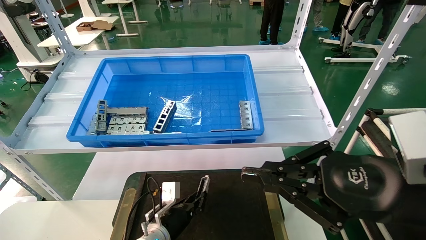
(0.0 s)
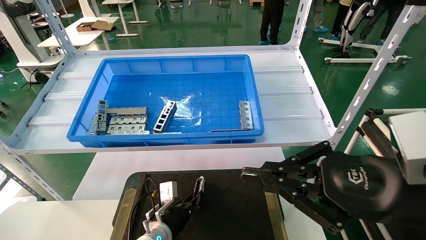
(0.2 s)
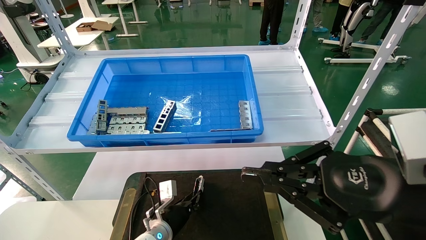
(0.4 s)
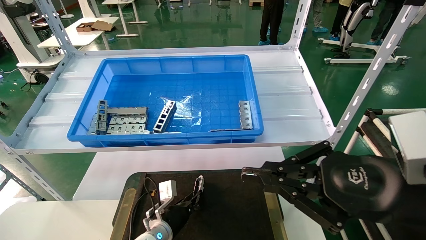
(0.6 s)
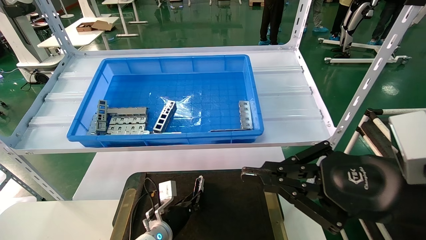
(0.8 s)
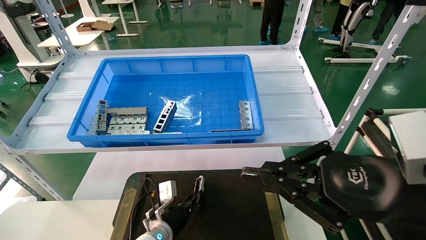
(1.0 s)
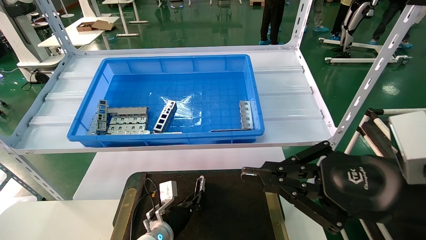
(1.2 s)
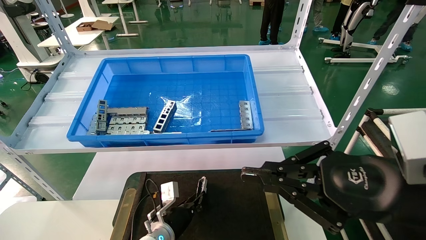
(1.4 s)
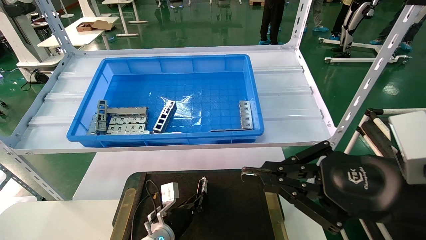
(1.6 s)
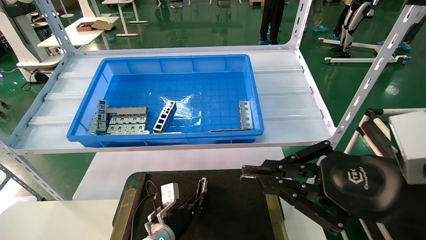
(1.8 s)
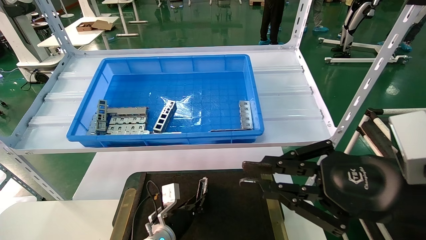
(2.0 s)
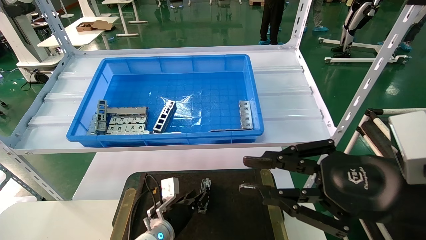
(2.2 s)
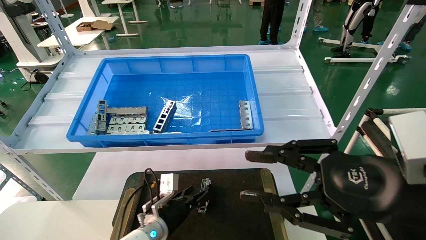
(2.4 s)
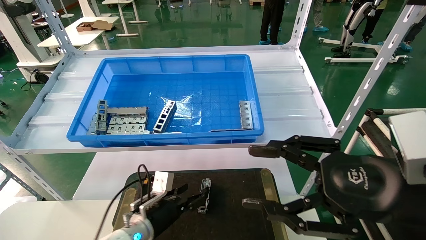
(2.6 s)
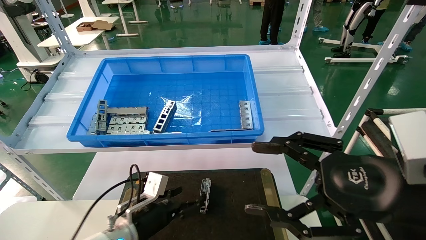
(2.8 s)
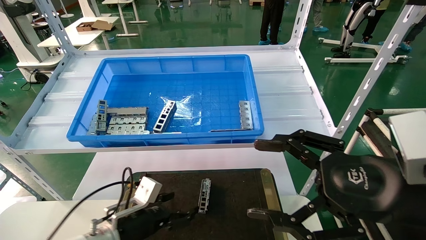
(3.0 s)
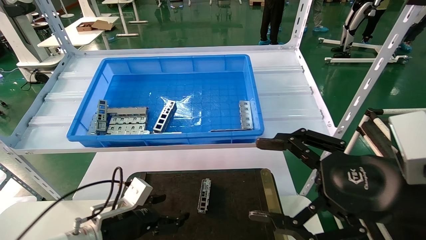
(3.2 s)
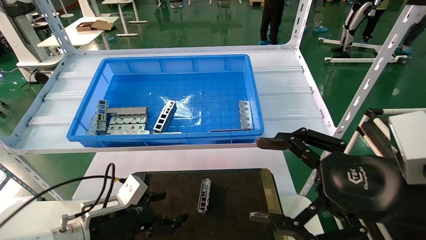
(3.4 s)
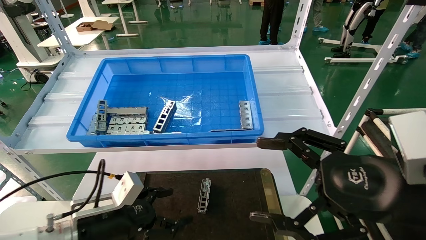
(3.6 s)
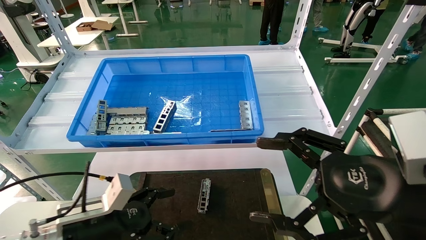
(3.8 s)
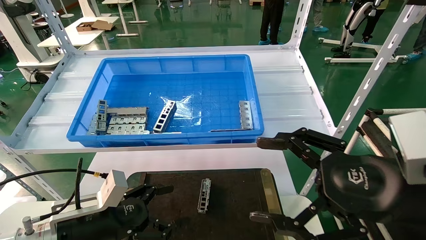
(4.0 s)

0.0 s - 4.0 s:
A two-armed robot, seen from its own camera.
Task of the whole recording: Grasp the part with one hand and place it on the black container.
Step, 0.0 s - 2.2 s: Place the front USB bracket into the box.
0.0 s - 1.4 s: The grippers stay close to where they were, moving slightly.
1.4 s - 2.6 s: The right gripper opens; the left gripper goes approximately 5 cm upward, and opens its fingers.
2.6 s - 4.0 s: The right gripper opens. Meanwhile the left gripper shifts approximately 15 cm backward, to the left and upward, and opens.

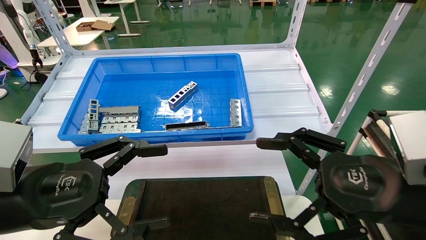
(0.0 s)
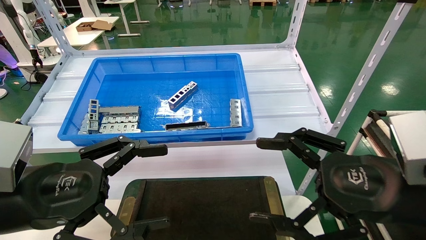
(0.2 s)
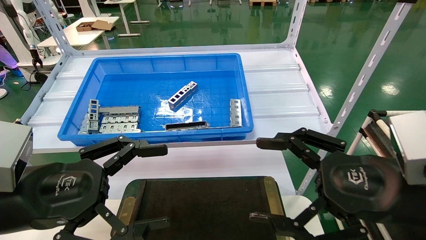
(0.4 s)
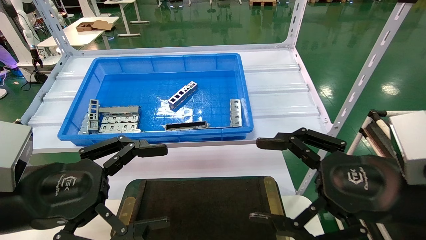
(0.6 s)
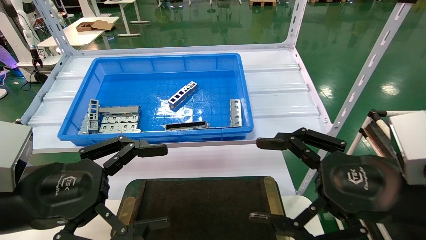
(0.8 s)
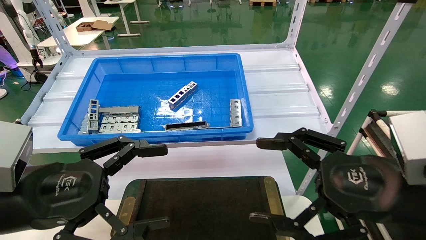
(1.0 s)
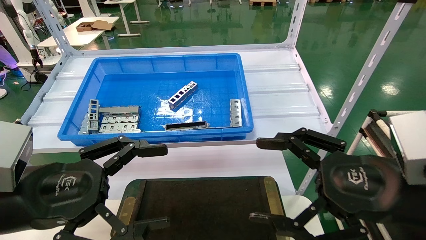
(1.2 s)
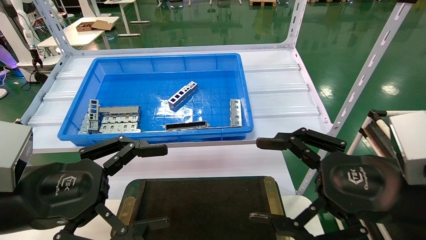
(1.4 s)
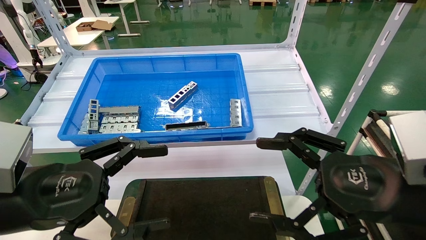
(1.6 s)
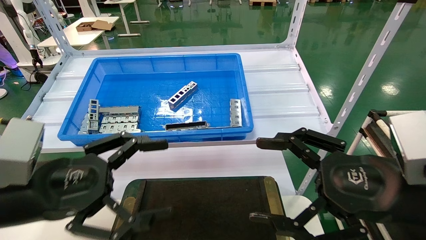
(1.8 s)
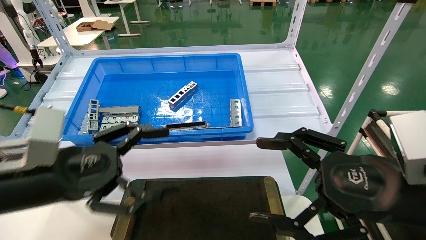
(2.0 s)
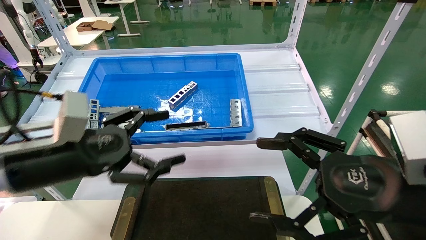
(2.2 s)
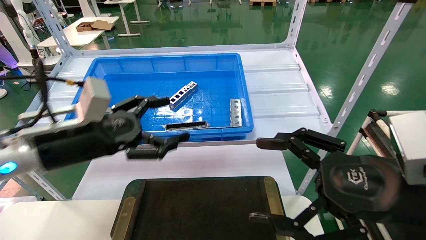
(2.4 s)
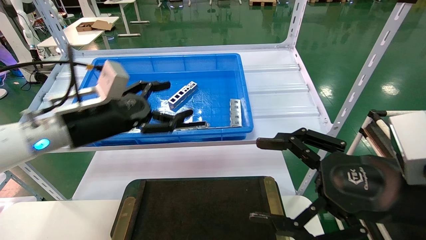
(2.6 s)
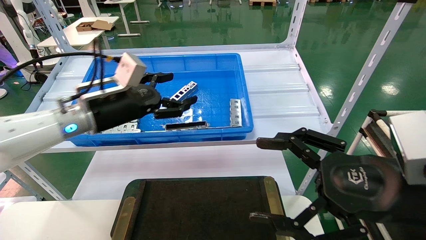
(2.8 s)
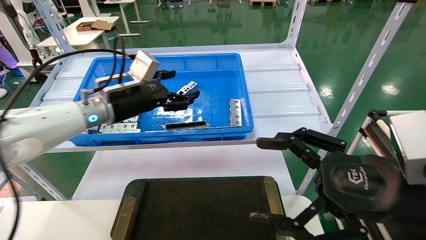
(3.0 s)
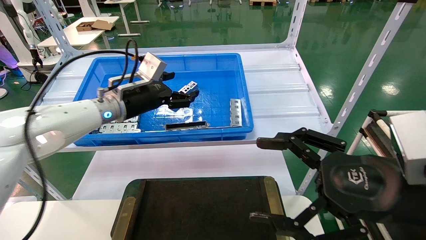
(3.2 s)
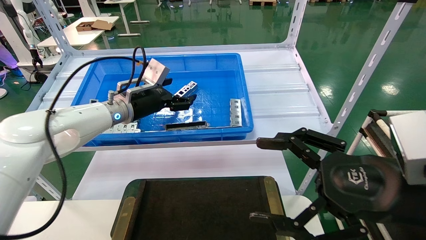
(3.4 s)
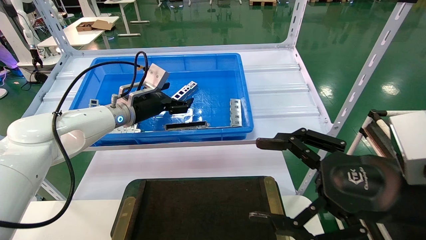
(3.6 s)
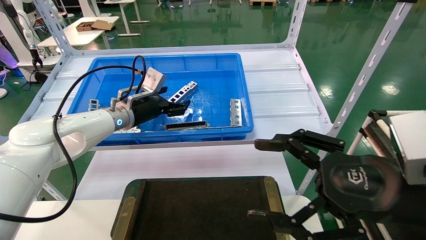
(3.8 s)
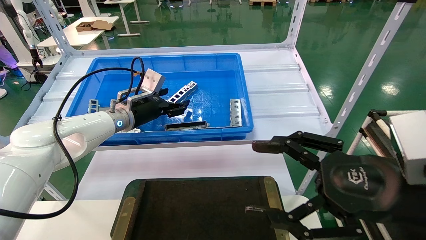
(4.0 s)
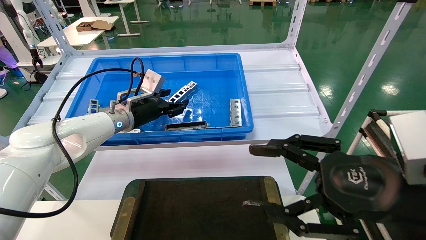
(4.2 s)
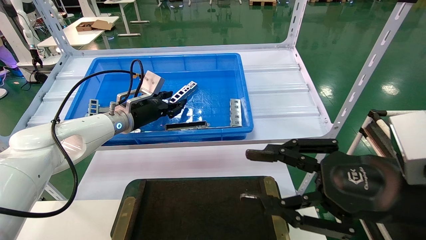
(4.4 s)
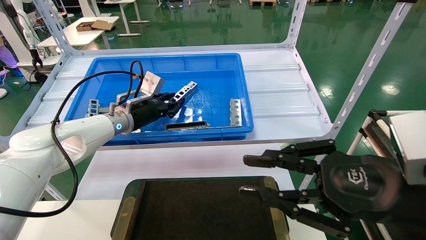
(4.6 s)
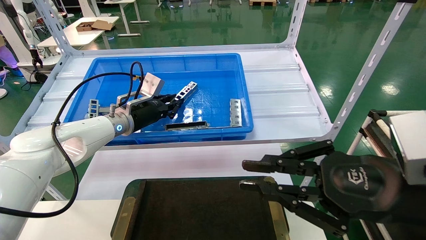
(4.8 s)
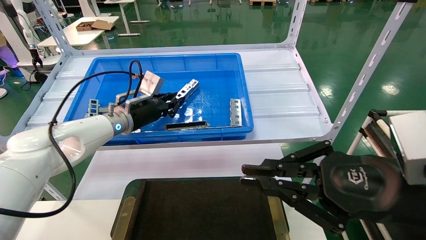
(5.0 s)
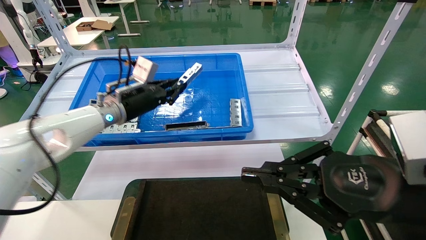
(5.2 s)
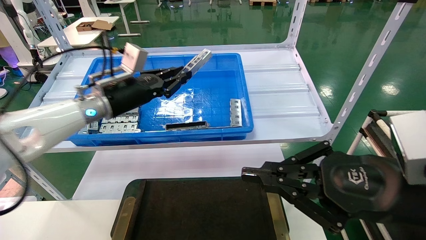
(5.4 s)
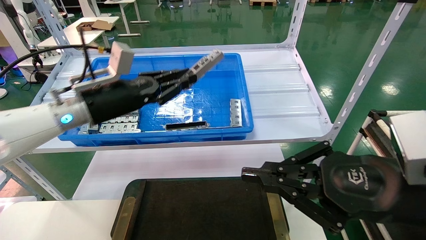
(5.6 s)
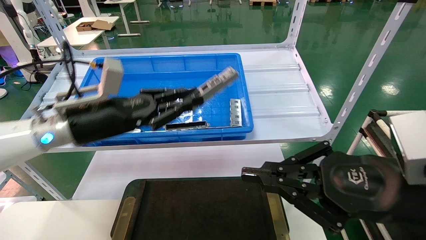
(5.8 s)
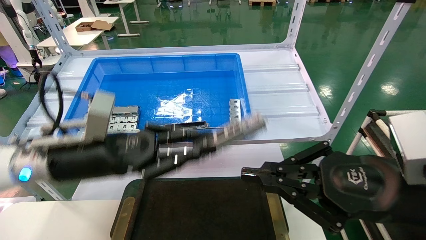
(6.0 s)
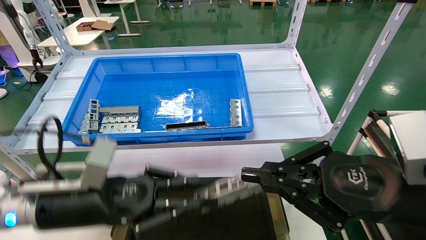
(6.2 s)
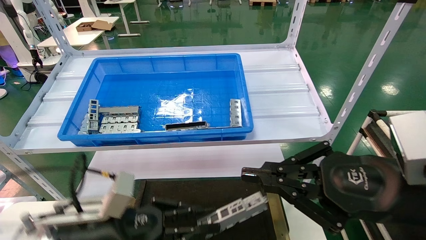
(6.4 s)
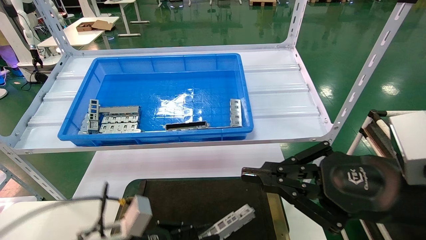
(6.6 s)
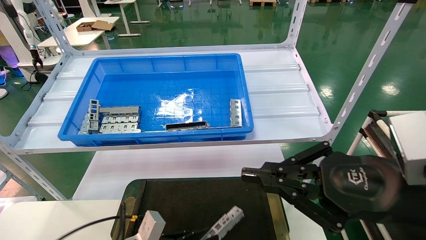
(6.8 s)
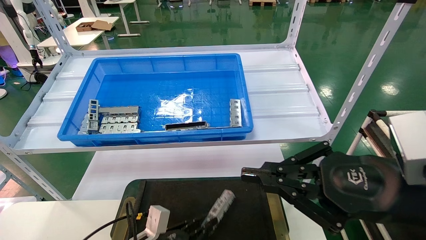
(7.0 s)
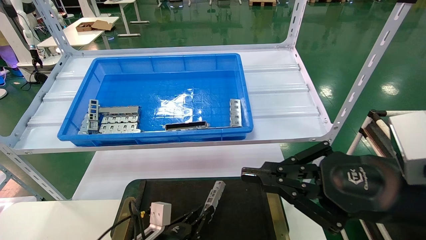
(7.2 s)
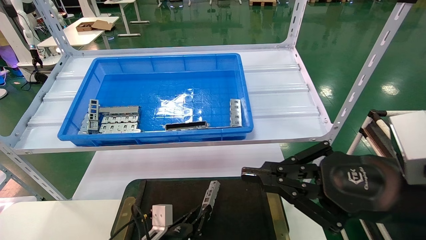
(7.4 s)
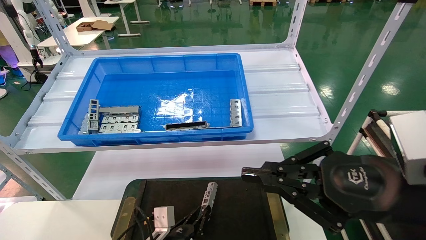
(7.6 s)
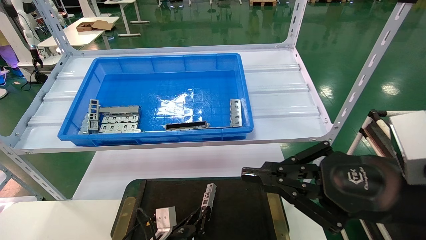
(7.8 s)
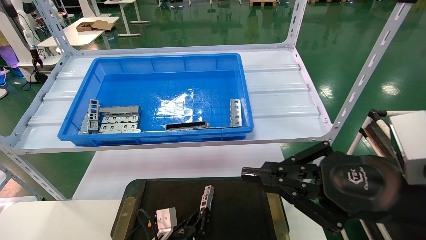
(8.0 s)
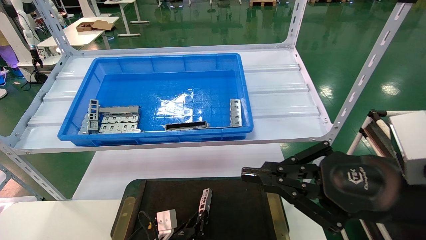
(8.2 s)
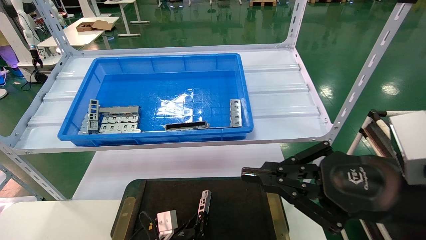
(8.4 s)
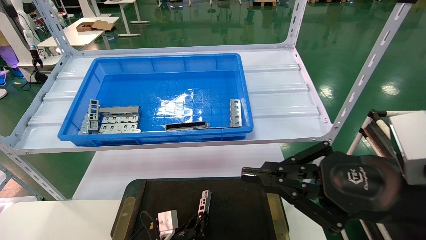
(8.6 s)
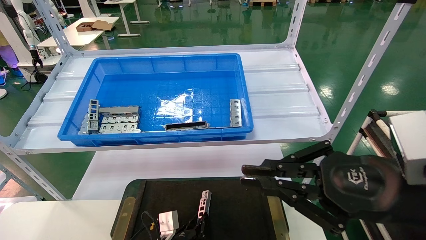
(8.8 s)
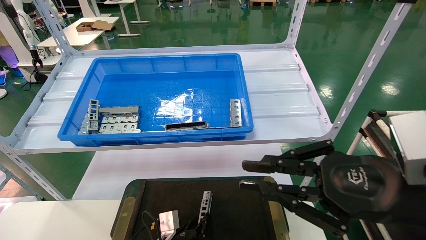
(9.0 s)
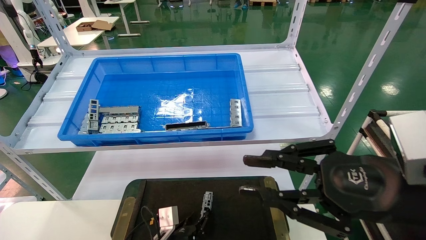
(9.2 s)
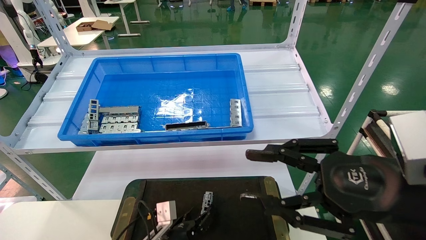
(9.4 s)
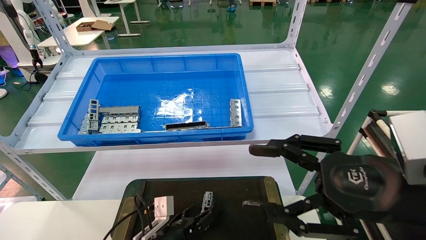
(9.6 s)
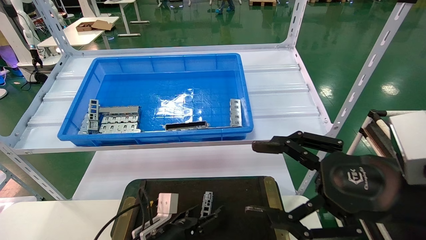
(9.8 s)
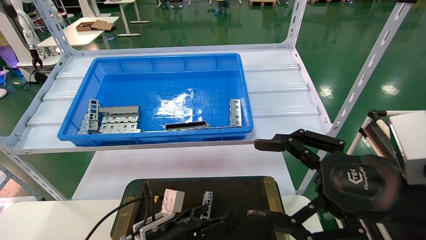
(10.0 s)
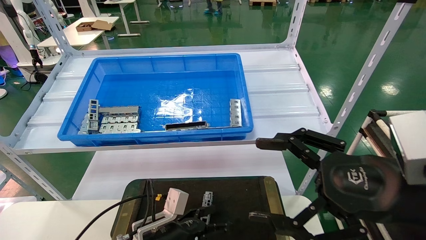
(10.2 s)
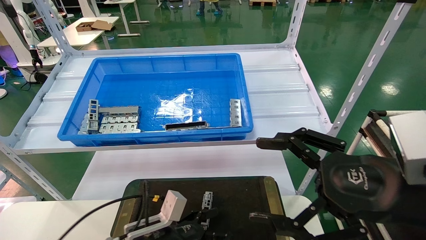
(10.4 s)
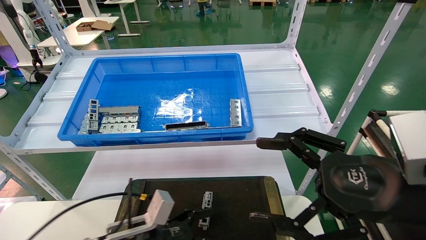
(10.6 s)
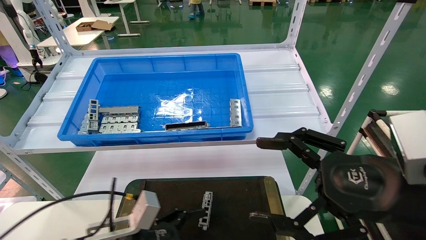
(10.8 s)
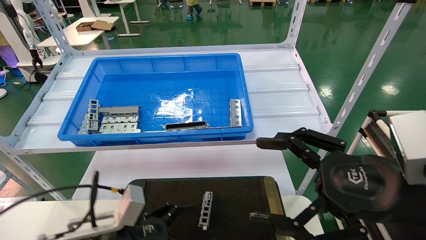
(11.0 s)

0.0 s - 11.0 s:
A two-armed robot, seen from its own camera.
Task of the whole recording: Grasp the part with one hand and place it on the black container.
Step, 2.0 s - 4.8 s: Pick up the front USB bracket from the feeding area.
Step, 5.0 s - 8.8 s: Place the front USB bracket into the box.
0.0 s - 1.6 s: Both grippers stay about where they are.
1.6 s - 3.2 s: The left gripper goes roughly 25 cm forward.
3.2 s - 4.8 s: The right gripper closes up. Meanwhile the left gripper shifts by about 5 cm, and closes.
4.8 s - 6.2 s: The left gripper shifts about 20 cm backward.
6.2 s - 7.8 s: The left gripper shifts about 30 cm downward and to the right.
7.8 s - 9.4 s: The right gripper opens its fingers; the left gripper opens up.
9.4 s - 11.0 s: The right gripper opens; the left gripper shifts roughly 20 cm upward, to the left and backward, and opens.
